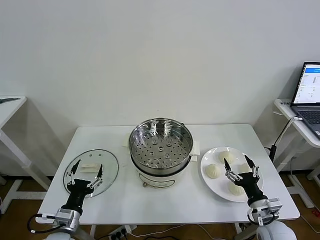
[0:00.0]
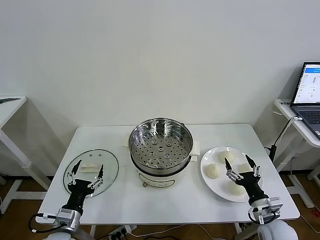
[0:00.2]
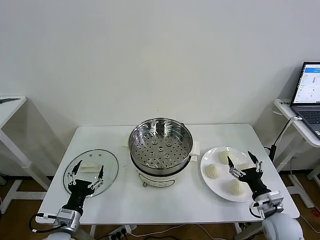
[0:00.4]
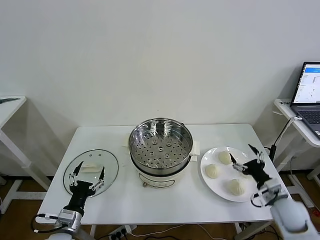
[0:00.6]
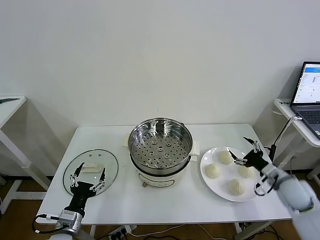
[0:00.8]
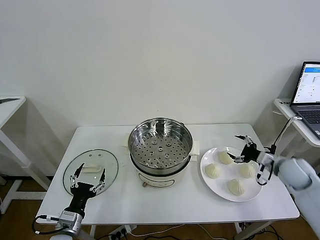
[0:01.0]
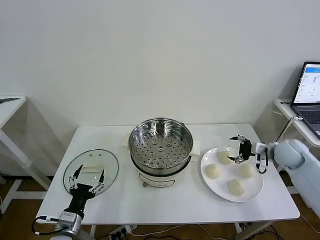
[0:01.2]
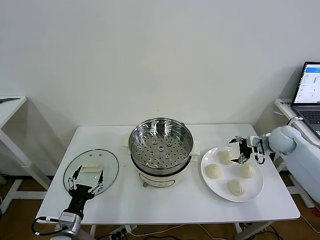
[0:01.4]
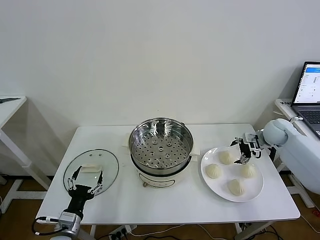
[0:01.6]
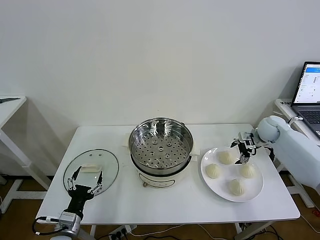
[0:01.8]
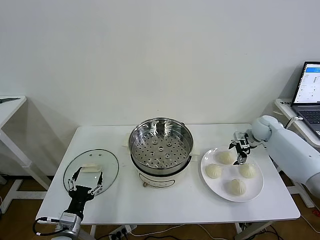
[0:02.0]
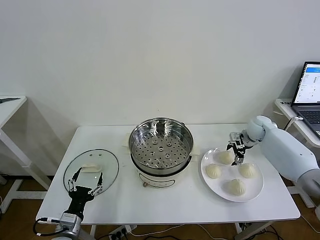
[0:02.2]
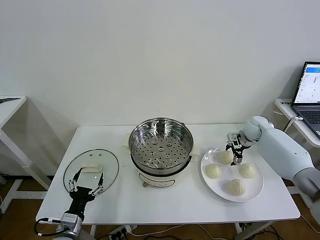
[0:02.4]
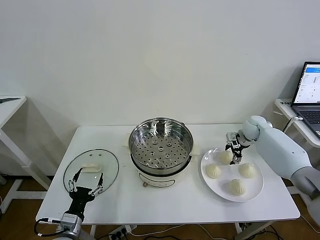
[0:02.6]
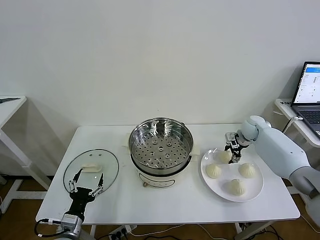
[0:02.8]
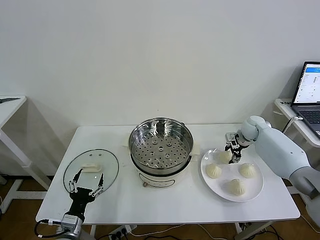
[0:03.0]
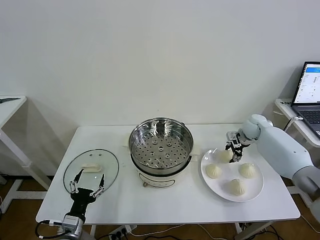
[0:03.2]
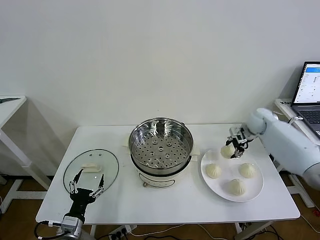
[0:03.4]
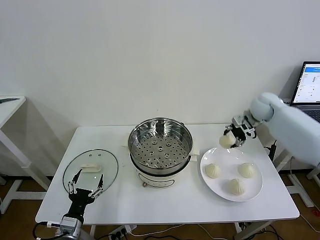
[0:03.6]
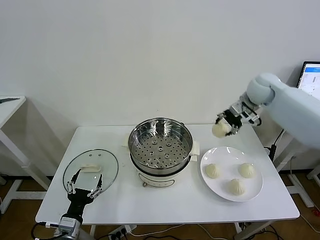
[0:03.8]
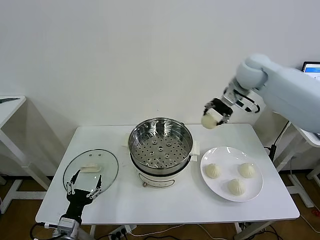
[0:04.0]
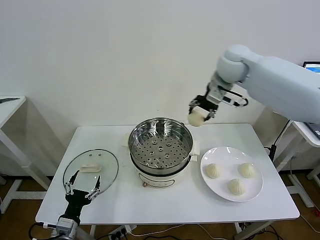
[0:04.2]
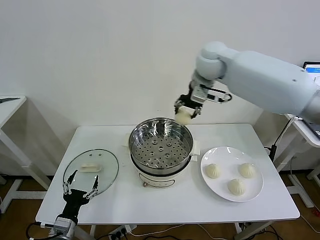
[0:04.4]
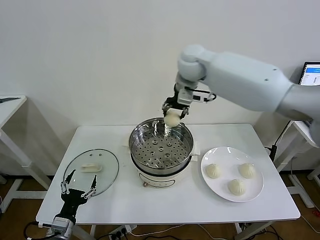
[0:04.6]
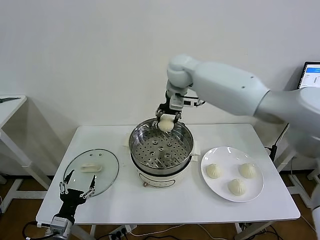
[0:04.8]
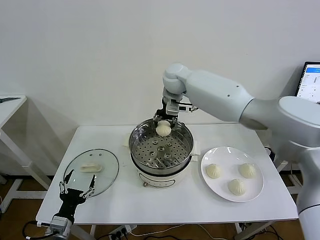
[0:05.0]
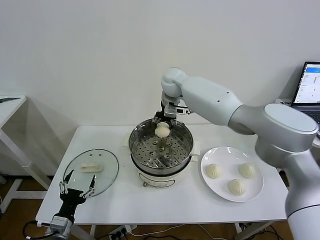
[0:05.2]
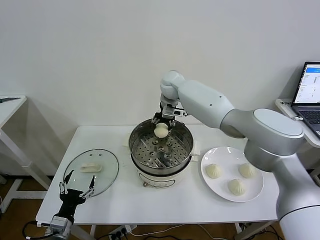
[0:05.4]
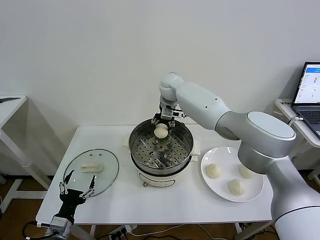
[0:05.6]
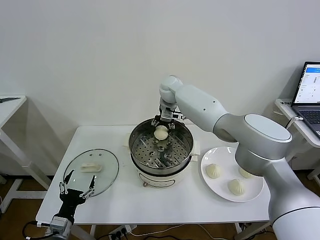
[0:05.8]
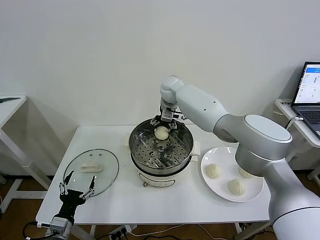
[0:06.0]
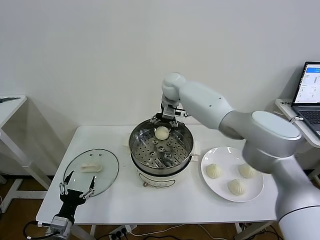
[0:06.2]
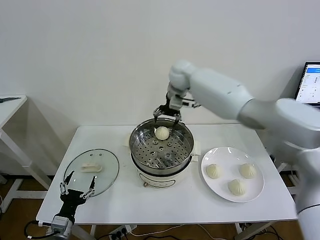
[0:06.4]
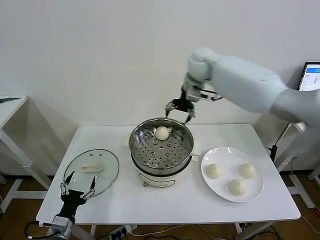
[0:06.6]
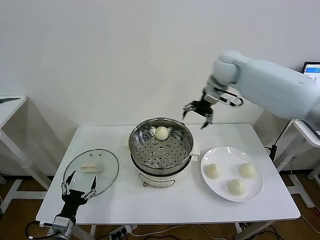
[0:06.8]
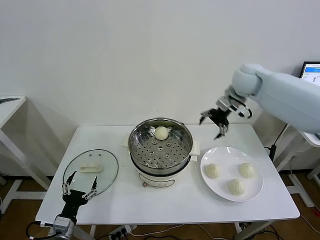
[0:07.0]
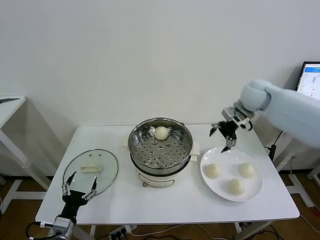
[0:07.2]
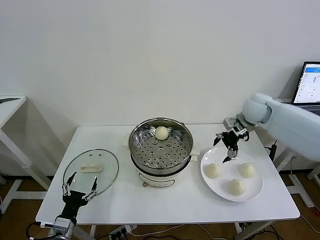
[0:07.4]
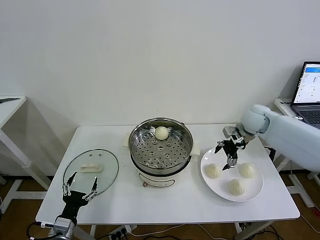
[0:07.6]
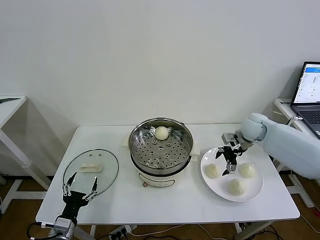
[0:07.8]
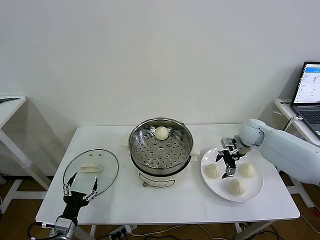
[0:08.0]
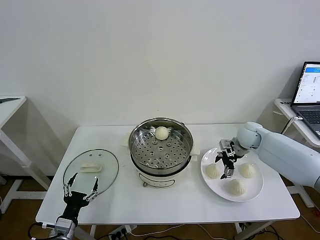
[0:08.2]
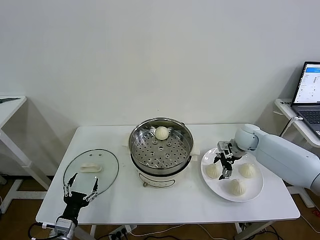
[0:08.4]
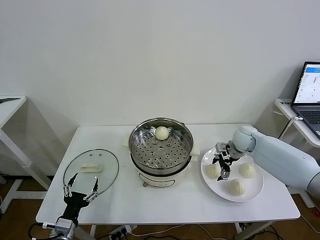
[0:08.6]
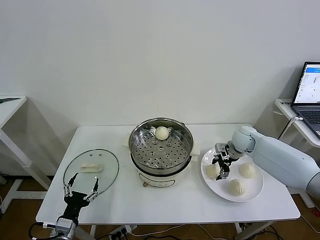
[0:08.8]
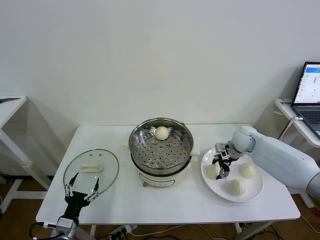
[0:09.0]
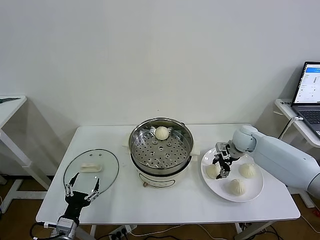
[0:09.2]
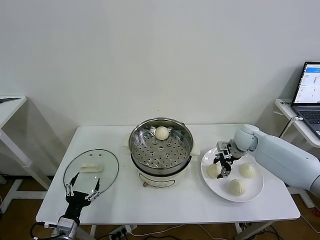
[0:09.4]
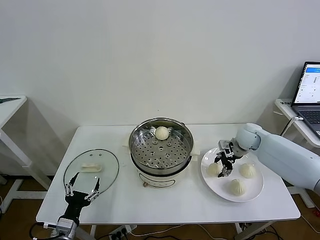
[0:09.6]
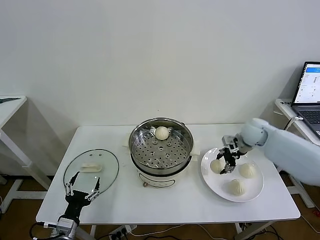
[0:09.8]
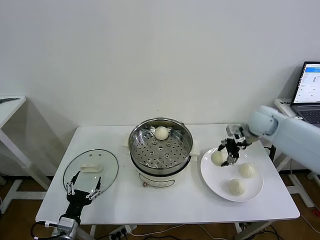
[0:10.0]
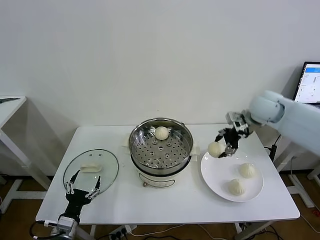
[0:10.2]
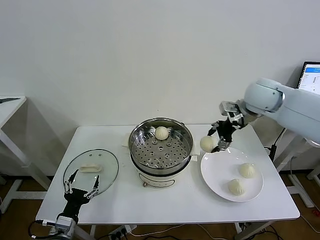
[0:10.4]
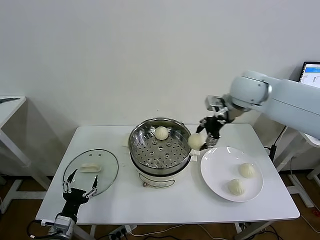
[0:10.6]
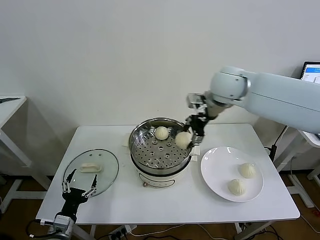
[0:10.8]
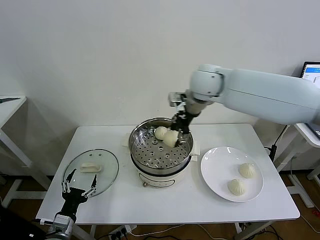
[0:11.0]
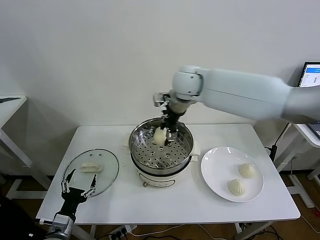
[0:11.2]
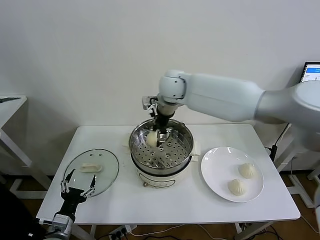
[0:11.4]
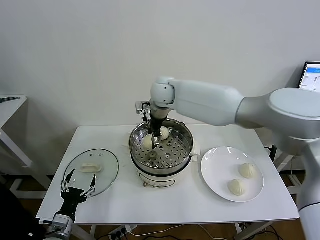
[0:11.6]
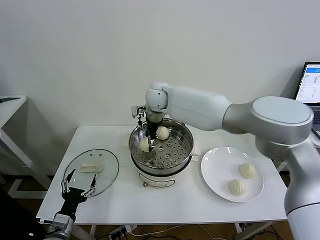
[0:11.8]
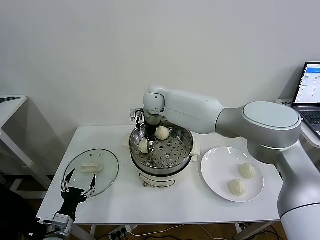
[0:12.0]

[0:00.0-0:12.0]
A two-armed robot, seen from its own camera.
Task of the whole recording: take steamed baozi put them in steamer then cover it.
Step, 0:00.0 to 0:02.6: Grasp the baozi in the plate with right gripper.
Step, 0:03.0 to 0:06.0: Place the baozi on the steamer with right gripper.
Step, 0:06.2 to 0:09.0: Grasp the baozi in the plate with right gripper.
0:01.6 to 0:03.0: The right gripper shifts by about 5 cm, and closes its fingers.
0:03.0 to 0:04.4: The right gripper heads upward and to the left, covering approximately 40 cm.
0:04.4 to 0:06.0: The right gripper goes some 15 cm downward, forward and to the left, and opens.
0:06.0 to 0:07.6: The right gripper shifts approximately 30 cm to the right.
0:07.6 to 0:09.0: The right gripper is displaced downward by roughly 10 cm, and closes its fingers.
0:09.0 to 0:10.4: The right gripper moves upward, approximately 25 cm.
0:10.4 to 0:12.0: The right gripper shifts about 30 cm to the left.

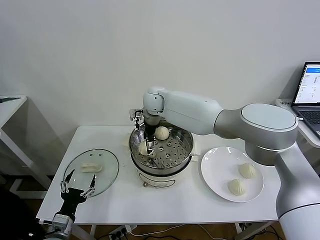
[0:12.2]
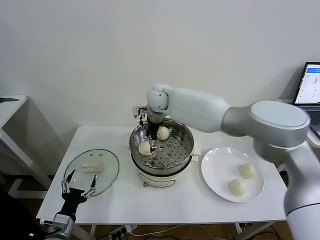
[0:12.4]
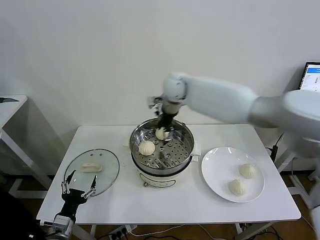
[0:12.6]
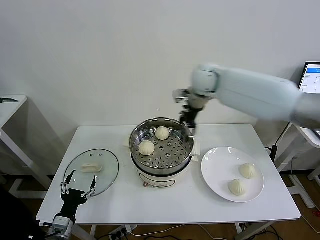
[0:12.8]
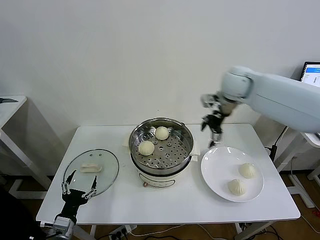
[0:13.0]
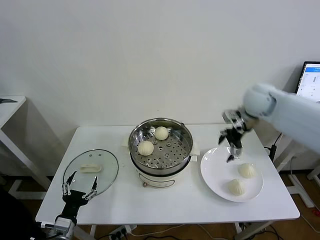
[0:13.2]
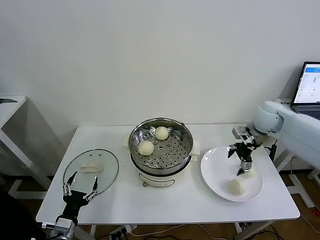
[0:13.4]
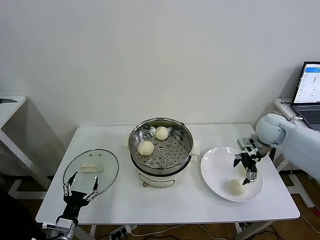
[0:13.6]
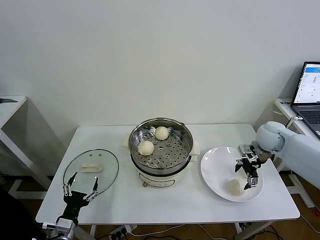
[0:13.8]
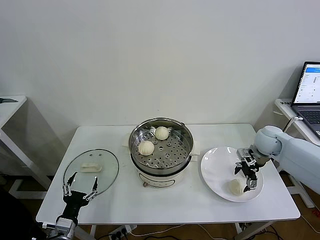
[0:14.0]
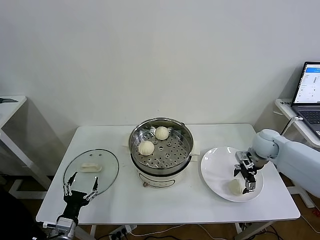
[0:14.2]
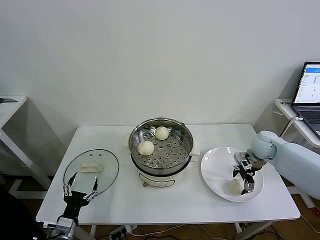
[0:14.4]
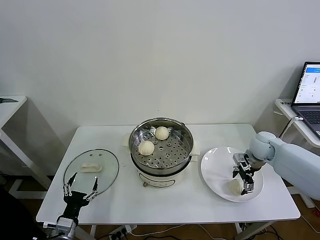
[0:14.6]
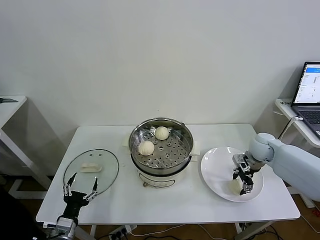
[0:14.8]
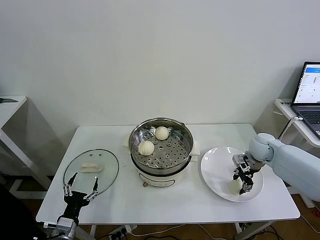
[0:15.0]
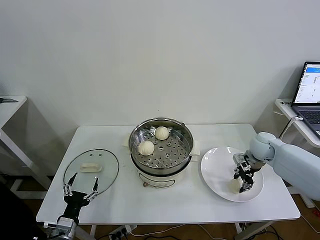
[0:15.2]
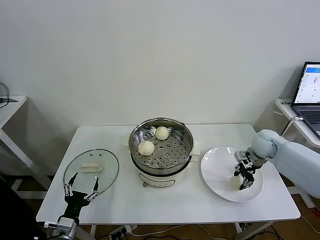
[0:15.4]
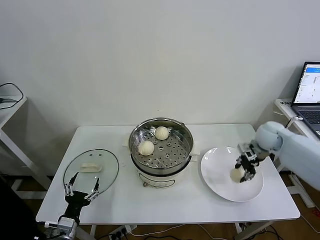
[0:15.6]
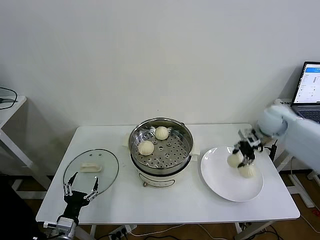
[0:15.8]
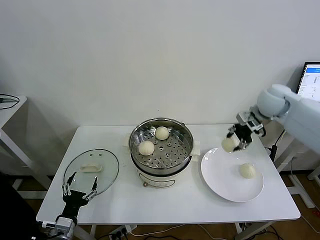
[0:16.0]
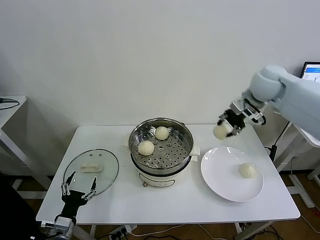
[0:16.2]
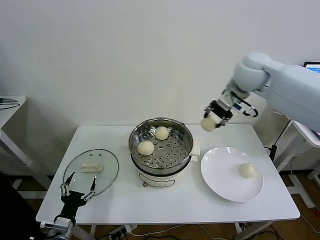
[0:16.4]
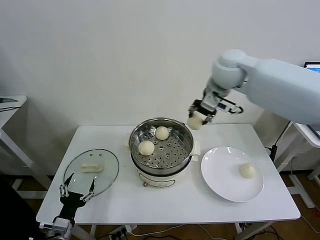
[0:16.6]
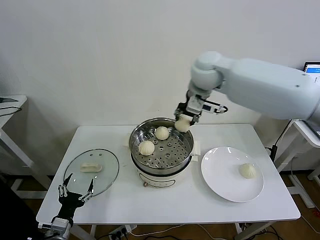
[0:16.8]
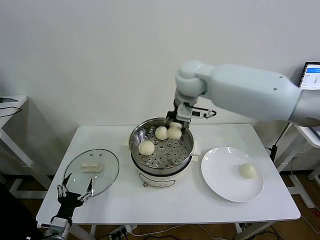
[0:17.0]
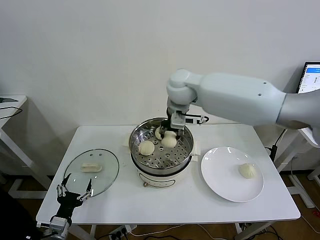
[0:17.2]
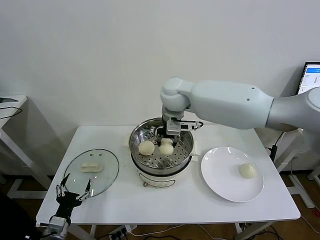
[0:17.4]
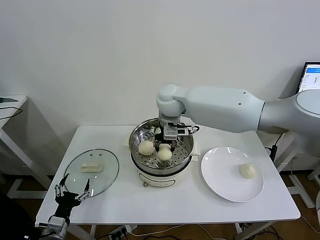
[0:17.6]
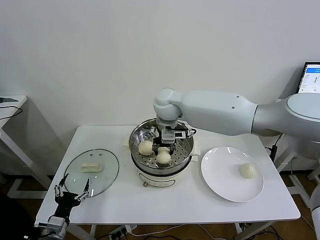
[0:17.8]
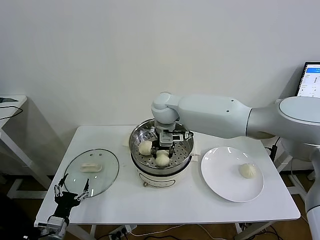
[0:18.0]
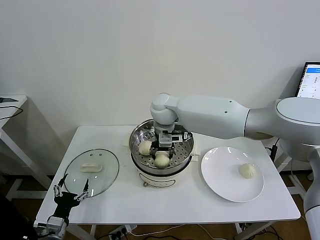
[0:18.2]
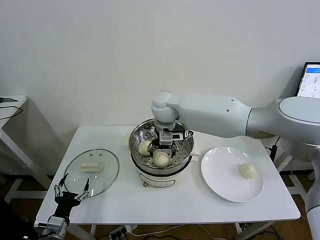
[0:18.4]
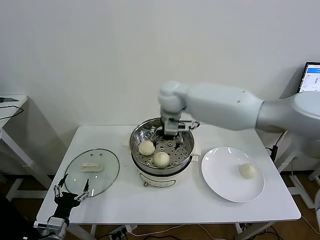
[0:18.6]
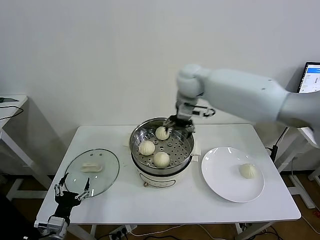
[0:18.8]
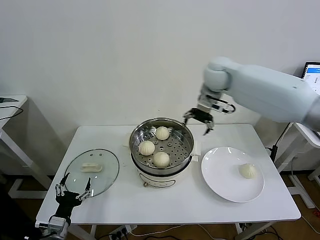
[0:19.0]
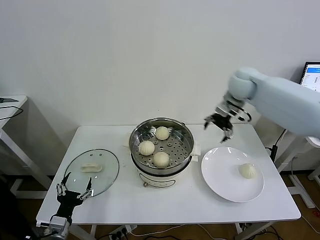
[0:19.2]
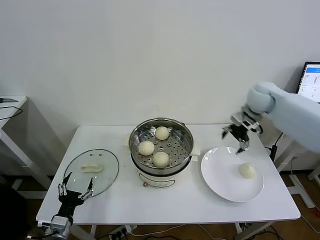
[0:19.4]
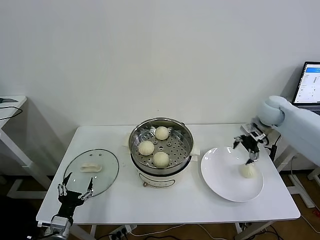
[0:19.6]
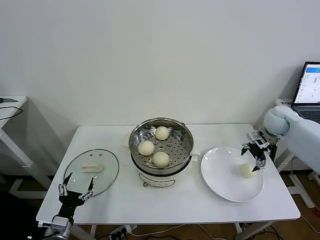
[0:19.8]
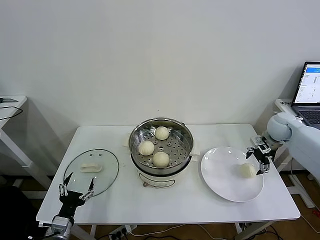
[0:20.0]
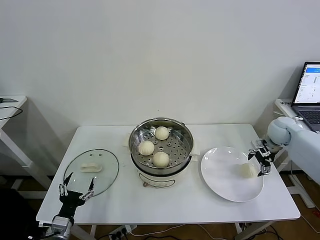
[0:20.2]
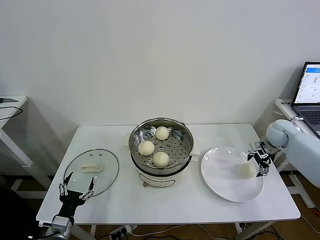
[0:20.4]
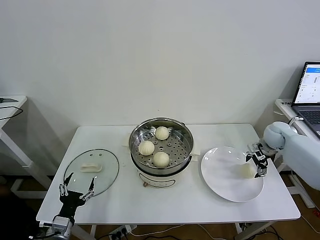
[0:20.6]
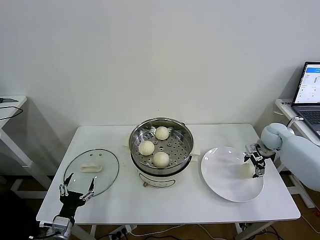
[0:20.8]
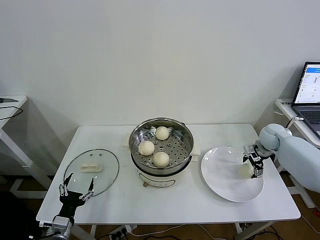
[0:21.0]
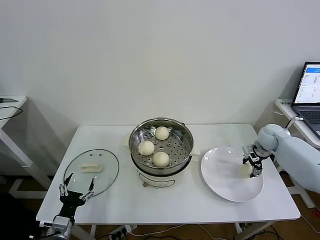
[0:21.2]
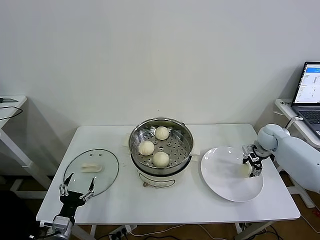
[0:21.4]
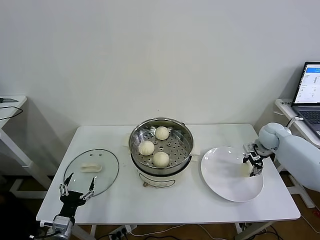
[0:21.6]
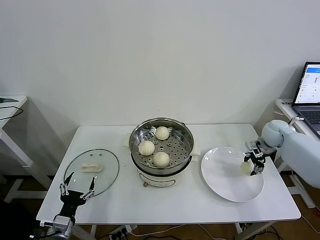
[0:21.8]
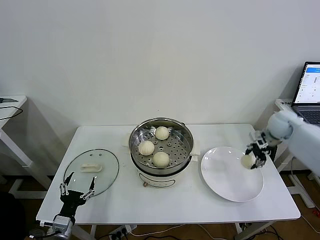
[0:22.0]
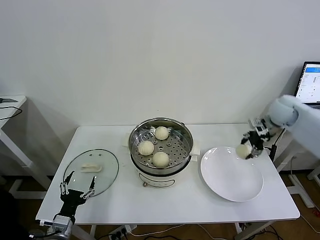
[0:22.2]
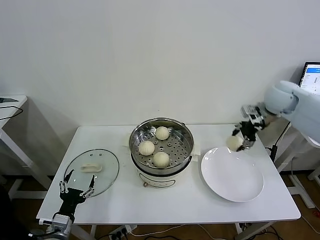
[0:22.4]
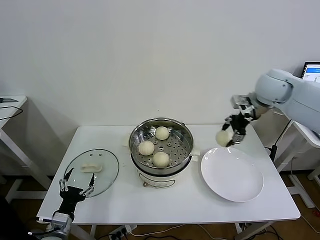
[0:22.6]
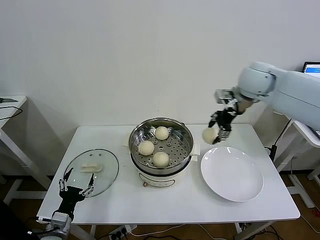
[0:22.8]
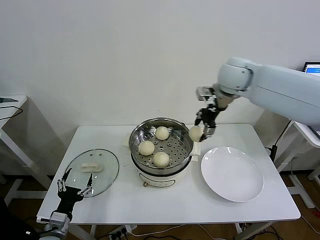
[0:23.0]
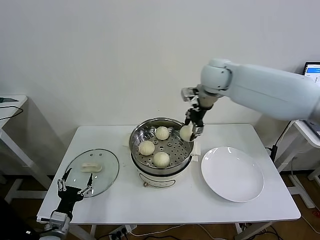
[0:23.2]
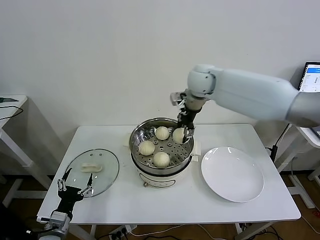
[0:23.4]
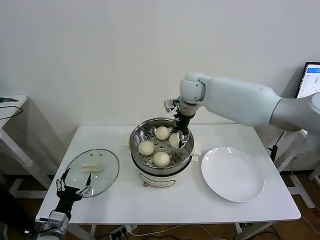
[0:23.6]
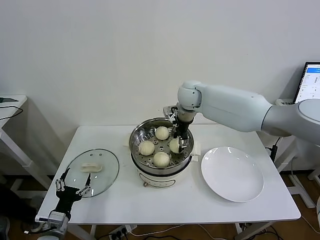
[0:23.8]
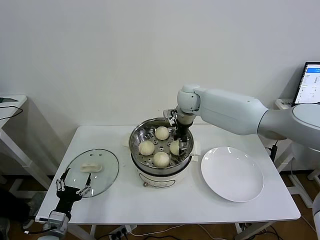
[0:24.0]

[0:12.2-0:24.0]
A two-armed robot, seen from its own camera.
Task of the whole recording: take steamed baozi put them in steamer then cover it.
Step, 0:12.4 to 0:15.0: Grasp the baozi in the plate with right gripper.
Step, 0:15.2 to 0:18.4: Place the baozi on the steamer with right gripper.
Step, 0:18.6 to 0:21.4: Grasp the baozi in the plate with right gripper.
0:12.2 to 0:13.6: The right gripper moves to the right, roughly 40 cm.
0:13.6 to 0:15.2: The right gripper moves downward, approximately 5 cm, and closes.
0:15.2 to 0:16.6: The right gripper moves upward and to the left, about 35 cm.
0:16.6 to 0:18.2: The right gripper shifts about 20 cm to the left and downward.
0:18.2 to 0:19.6: The right gripper moves to the right, about 35 cm, and opens its fingers.
0:19.6 to 0:21.0: The right gripper moves downward and to the right, some 15 cm.
0:21.0 to 0:22.6: The right gripper is displaced upward and to the left by approximately 25 cm, and closes.
0:22.6 to 0:24.0: The right gripper travels to the left and downward by about 25 cm.
